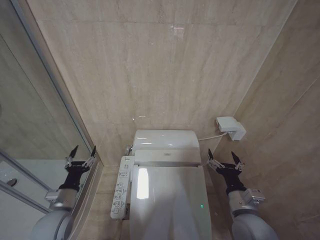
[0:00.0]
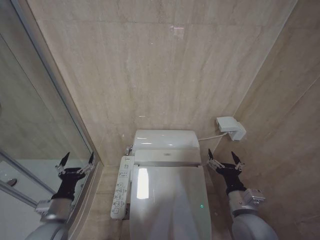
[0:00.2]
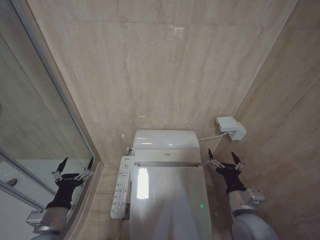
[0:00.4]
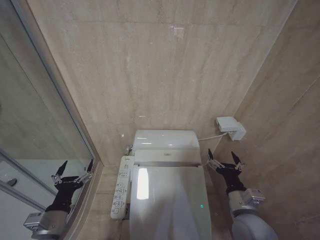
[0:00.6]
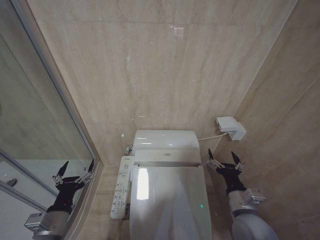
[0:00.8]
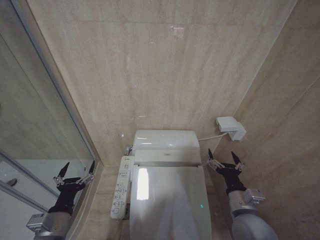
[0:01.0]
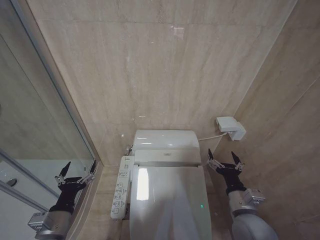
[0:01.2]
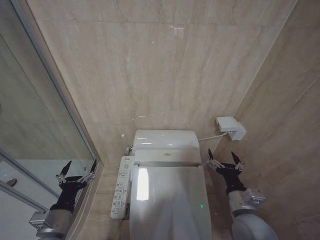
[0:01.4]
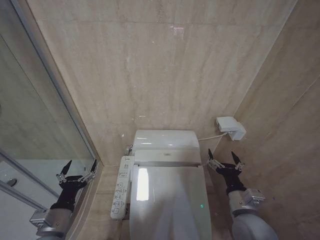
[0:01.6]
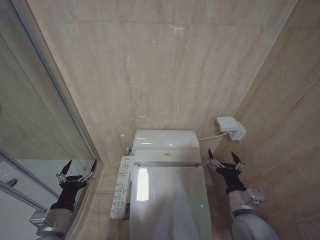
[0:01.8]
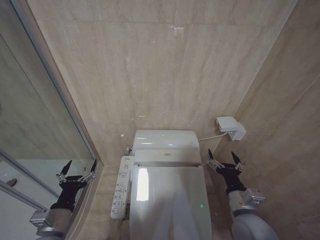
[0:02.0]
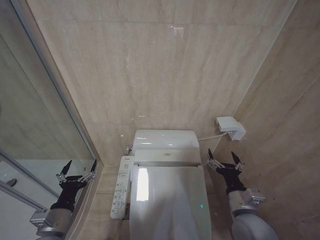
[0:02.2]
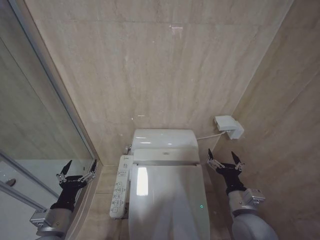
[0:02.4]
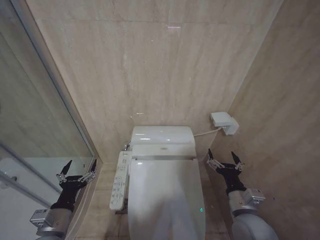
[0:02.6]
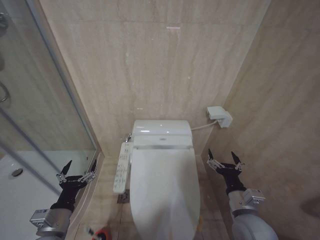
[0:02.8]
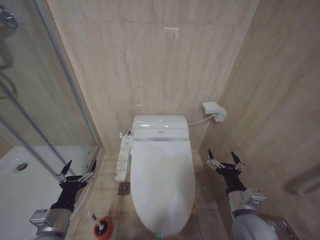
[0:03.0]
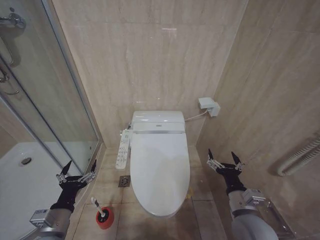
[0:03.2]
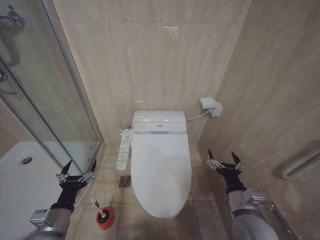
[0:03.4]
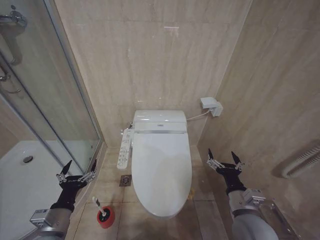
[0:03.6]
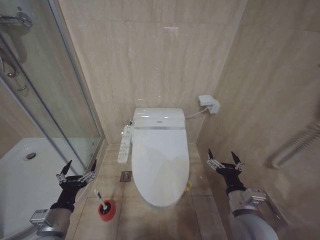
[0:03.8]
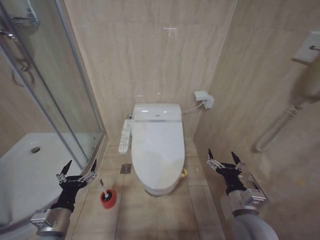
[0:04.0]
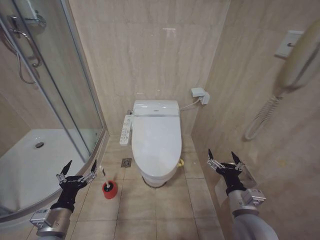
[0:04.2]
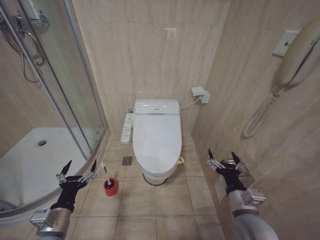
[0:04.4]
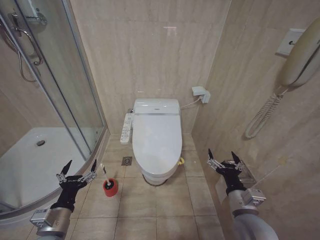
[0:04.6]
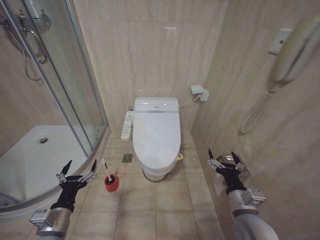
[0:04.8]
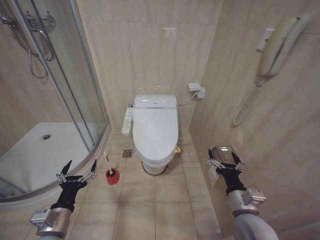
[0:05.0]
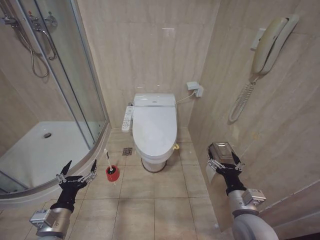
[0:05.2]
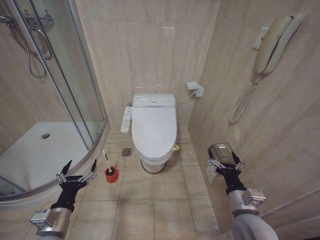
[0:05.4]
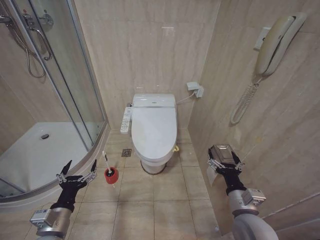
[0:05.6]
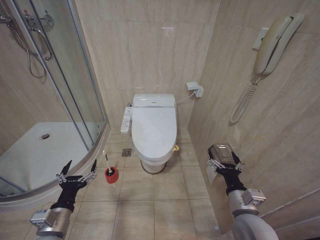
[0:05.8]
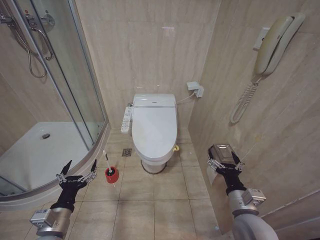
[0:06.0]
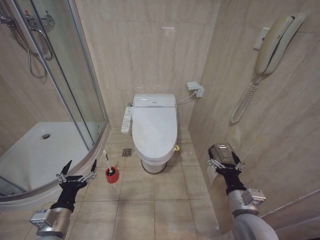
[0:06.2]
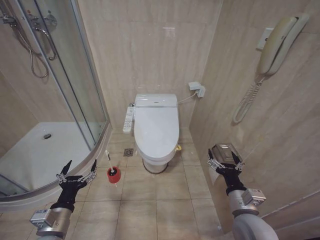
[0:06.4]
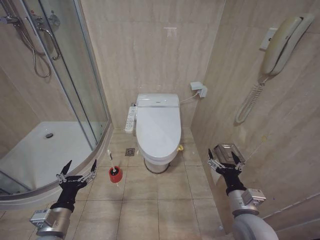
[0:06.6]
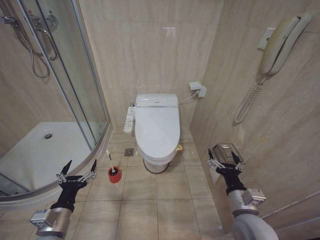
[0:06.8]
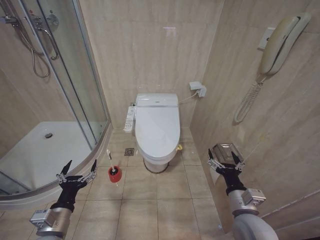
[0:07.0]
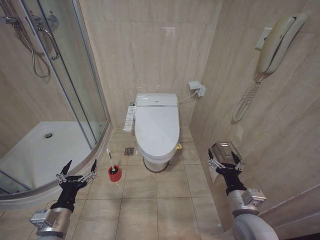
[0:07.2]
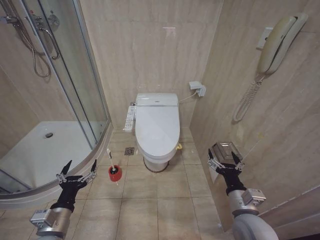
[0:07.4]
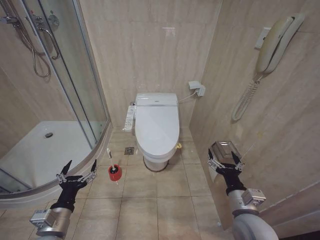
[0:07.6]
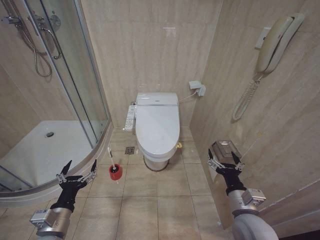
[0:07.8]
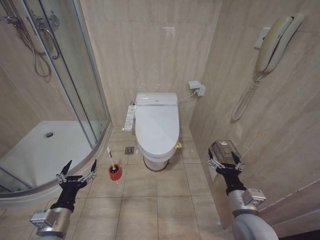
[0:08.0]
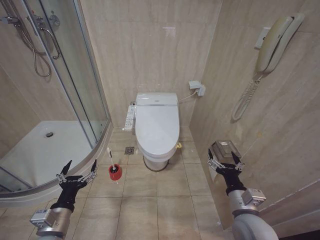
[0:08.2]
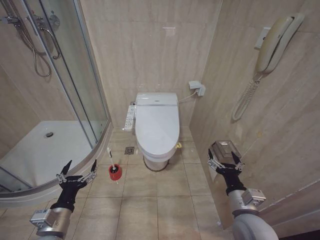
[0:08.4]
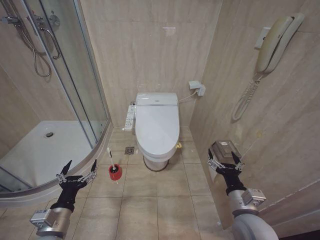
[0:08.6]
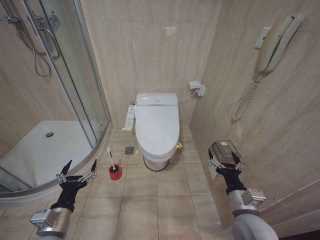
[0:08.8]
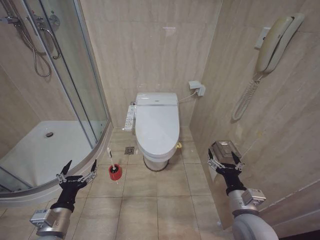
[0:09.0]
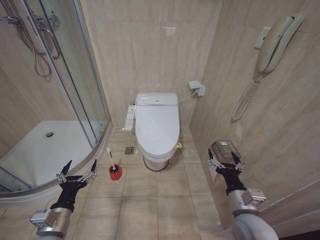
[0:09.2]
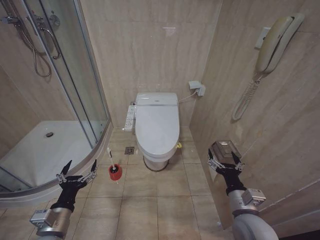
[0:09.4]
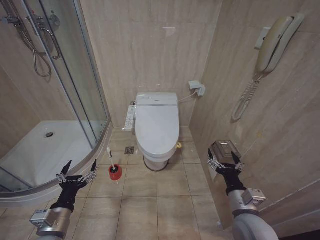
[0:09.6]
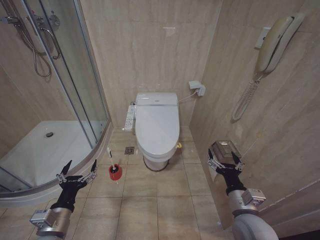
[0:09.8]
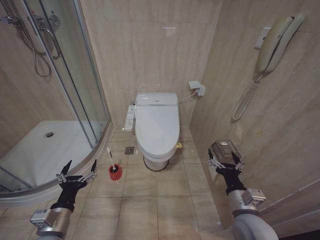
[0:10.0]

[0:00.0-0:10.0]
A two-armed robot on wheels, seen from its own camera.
Task of the whole recording: Open the toilet lid, clean the toilet bowl with a toilet brush, close the toilet lid, and flush.
0:00.0 to 0:01.4: The left gripper goes roughly 10 cm backward, and opens.
0:01.4 to 0:02.8: Neither gripper changes place.
0:04.2 to 0:10.0: The two grippers keep their place.
